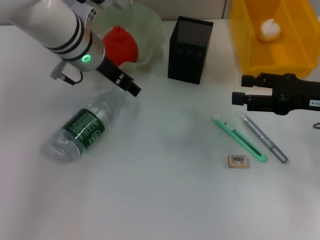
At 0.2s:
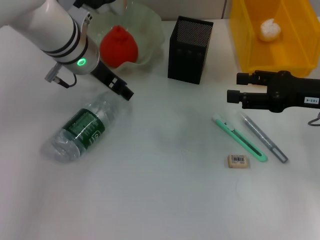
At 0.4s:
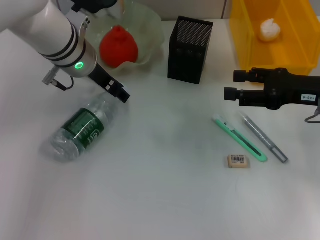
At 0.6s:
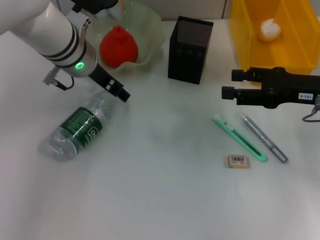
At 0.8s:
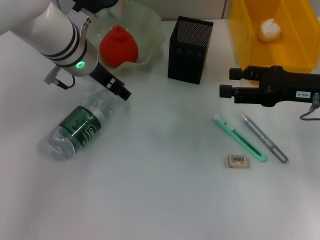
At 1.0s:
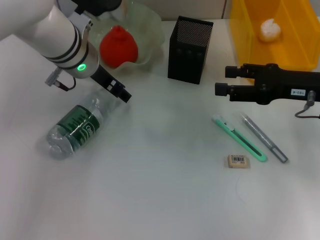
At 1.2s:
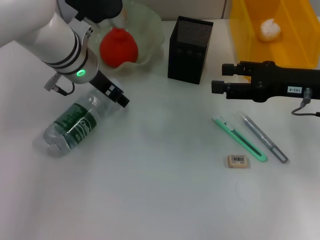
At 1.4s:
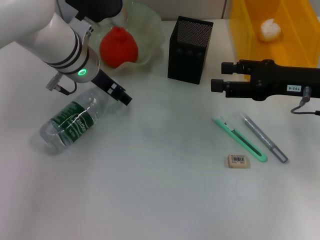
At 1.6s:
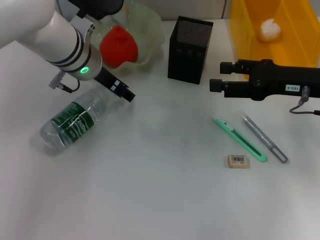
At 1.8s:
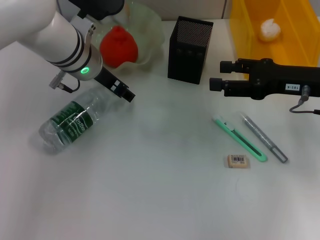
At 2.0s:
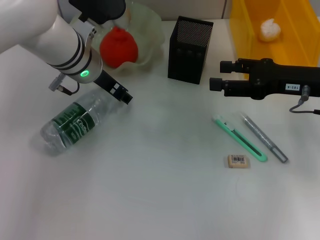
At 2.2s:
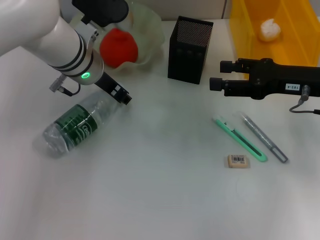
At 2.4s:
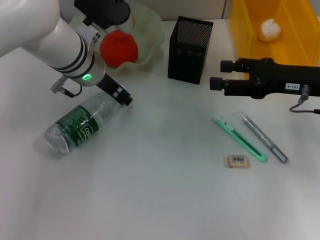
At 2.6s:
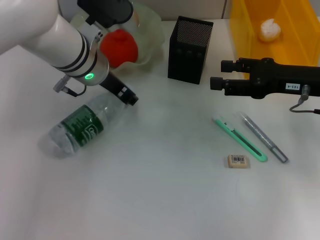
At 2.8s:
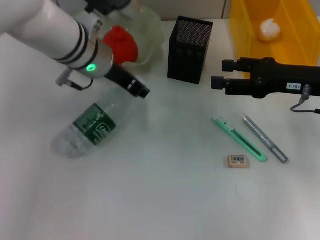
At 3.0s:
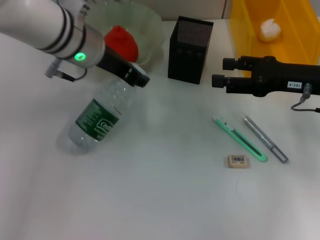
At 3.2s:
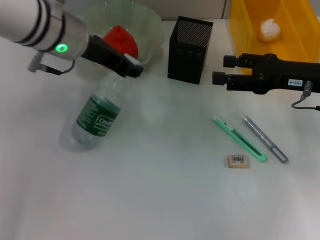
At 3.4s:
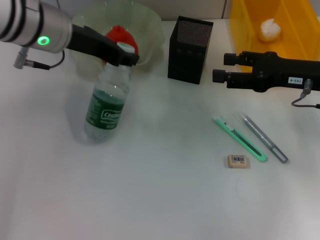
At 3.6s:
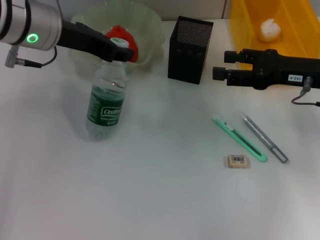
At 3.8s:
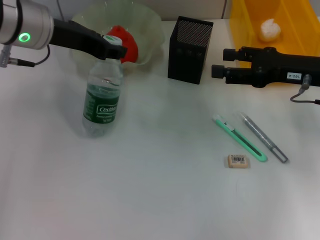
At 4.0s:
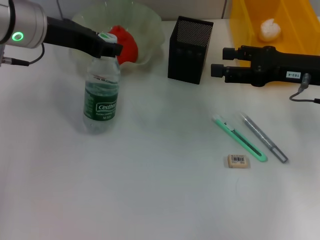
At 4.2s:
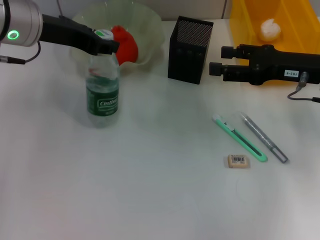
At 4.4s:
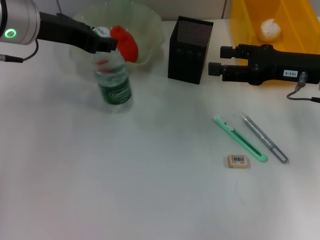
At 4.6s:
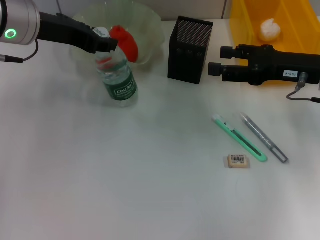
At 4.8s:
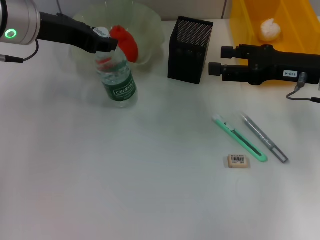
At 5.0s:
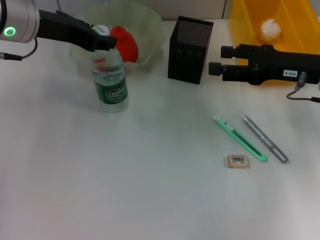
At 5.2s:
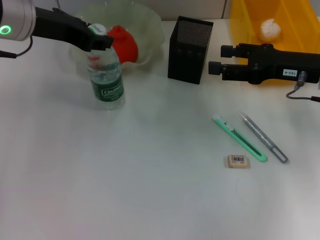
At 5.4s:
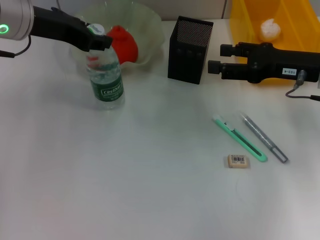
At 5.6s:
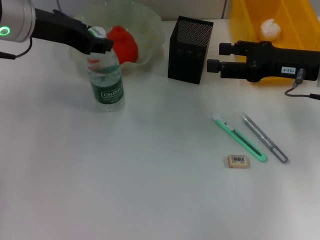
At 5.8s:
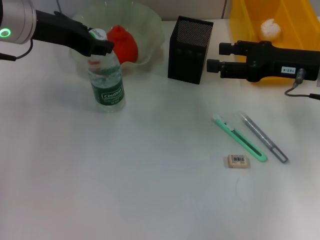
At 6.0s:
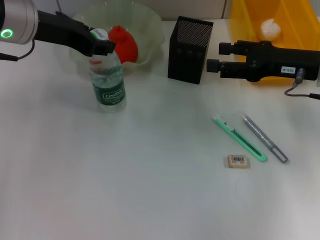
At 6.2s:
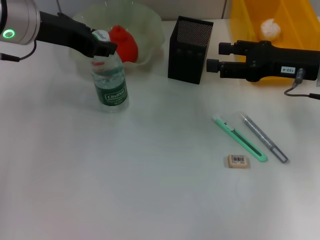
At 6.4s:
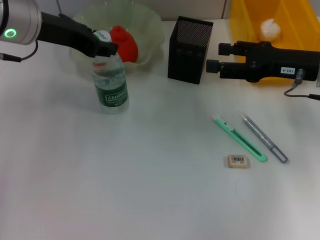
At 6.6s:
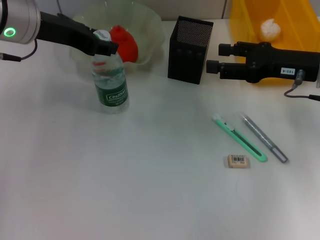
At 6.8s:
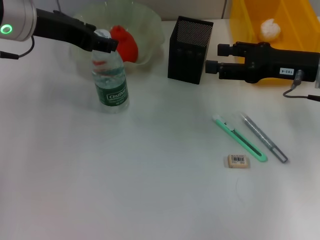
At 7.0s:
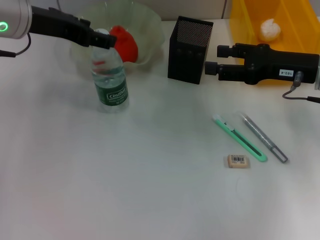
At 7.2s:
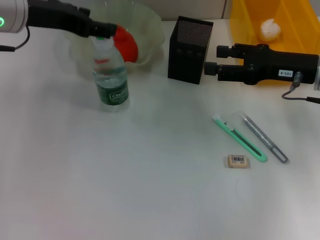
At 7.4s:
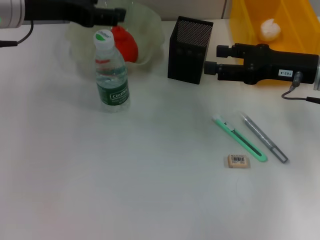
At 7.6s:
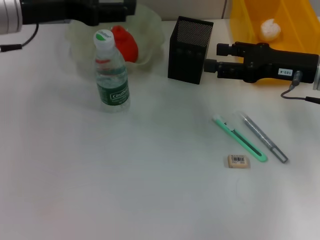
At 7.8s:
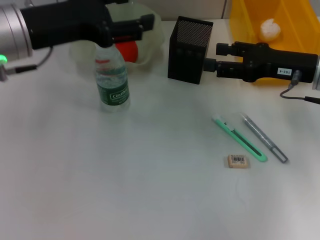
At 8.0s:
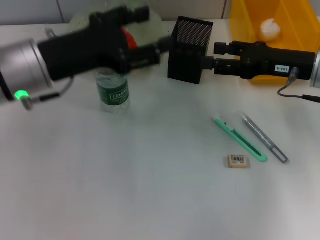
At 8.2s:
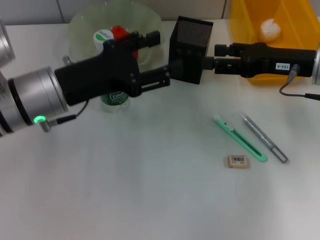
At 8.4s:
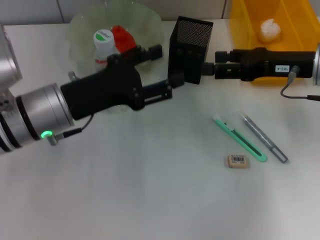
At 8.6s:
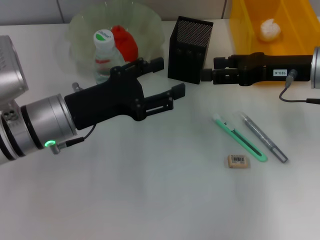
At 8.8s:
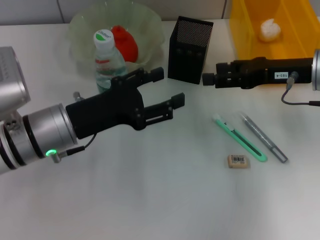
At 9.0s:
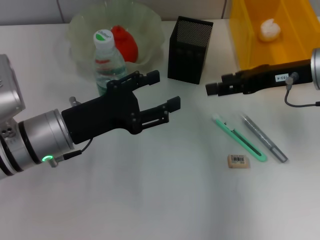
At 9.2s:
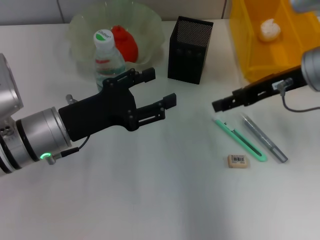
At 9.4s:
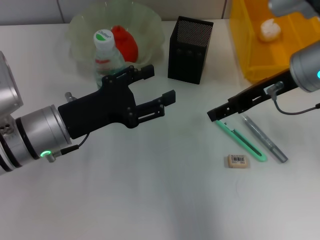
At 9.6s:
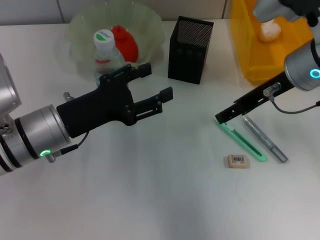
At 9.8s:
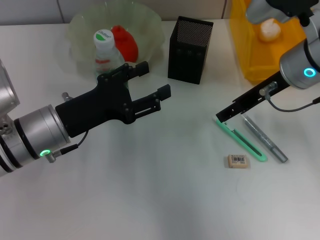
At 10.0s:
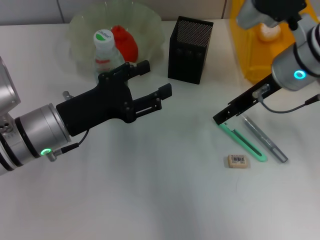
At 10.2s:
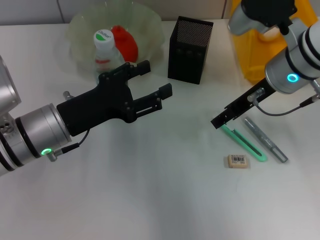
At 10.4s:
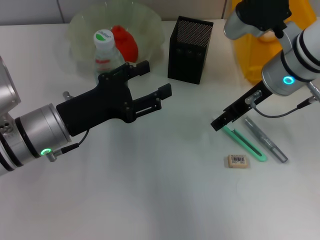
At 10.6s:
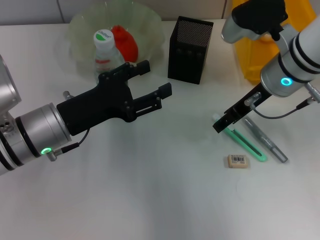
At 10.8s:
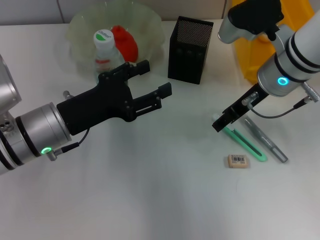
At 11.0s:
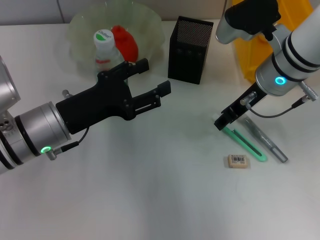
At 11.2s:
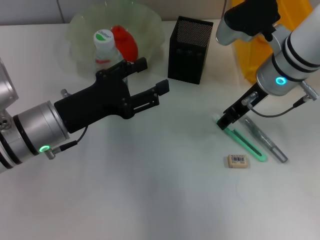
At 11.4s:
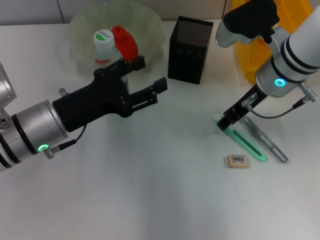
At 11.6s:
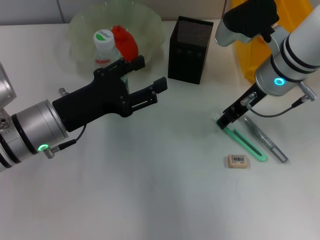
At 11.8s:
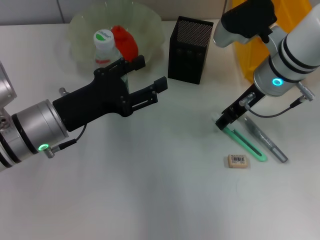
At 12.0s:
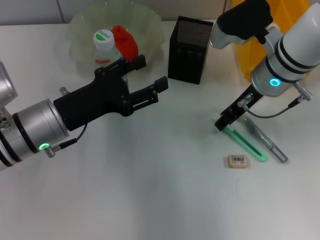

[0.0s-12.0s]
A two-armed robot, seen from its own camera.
Step, 0.0s to 2.4s: Grab the water bottle with the left hand.
Step, 2.6s to 7.2s: Place the water bottle on the table with the left hand.
0.0s to 1.6s: The grippers make only small movements.
1.6s to 3.0s: The left gripper closes.
3.0s to 4.4s: The left gripper shifts some 5 cm to the left.
4.4s to 6.0s: The grippers stay close to where they were, moving slightly.
6.0s to 7.6s: The left gripper opens.
7.6s to 9.0s: The left gripper moves downward and backward, roughly 15 cm.
9.0s to 10.4s: The right gripper travels to the left by approximately 10 cm.
10.4s to 12.0s: There are only small adjustments of the grippers.

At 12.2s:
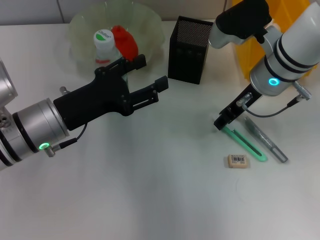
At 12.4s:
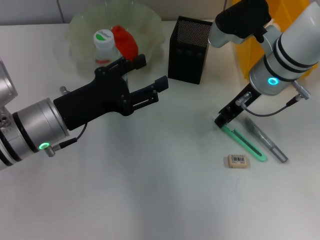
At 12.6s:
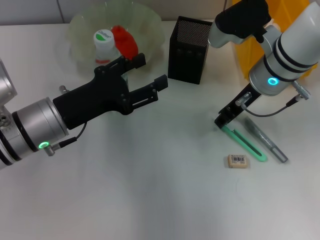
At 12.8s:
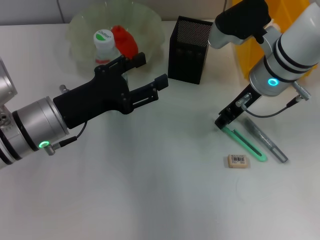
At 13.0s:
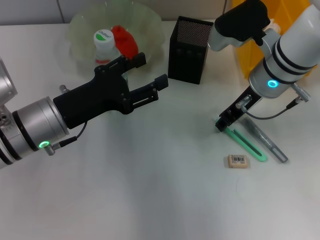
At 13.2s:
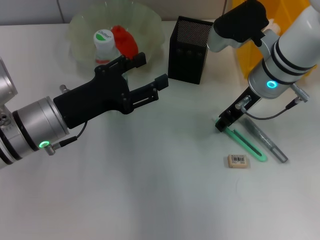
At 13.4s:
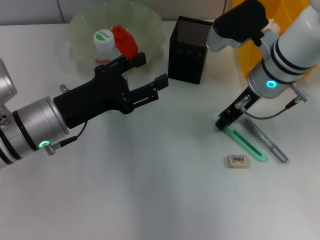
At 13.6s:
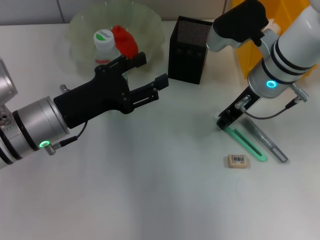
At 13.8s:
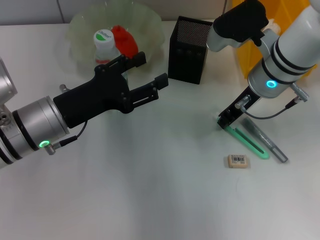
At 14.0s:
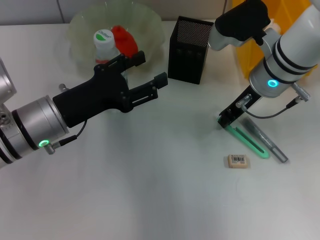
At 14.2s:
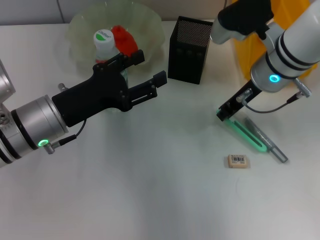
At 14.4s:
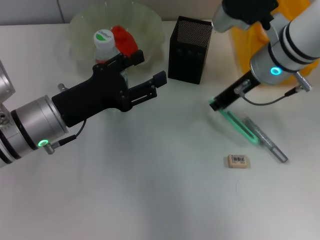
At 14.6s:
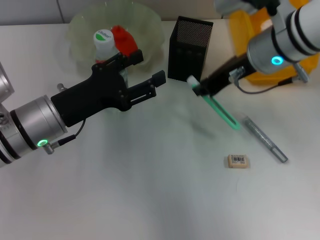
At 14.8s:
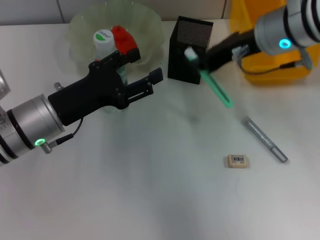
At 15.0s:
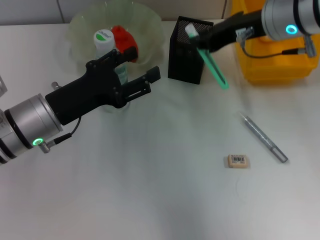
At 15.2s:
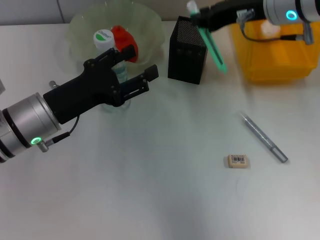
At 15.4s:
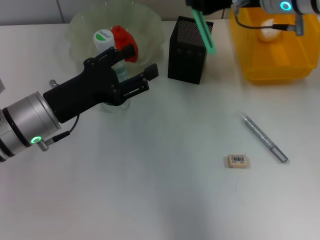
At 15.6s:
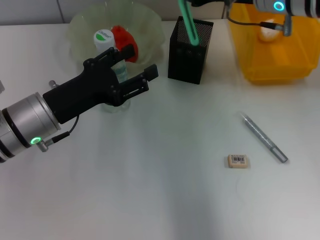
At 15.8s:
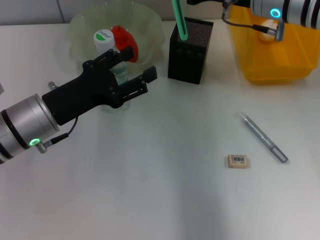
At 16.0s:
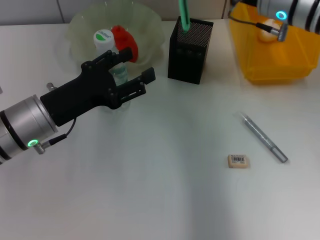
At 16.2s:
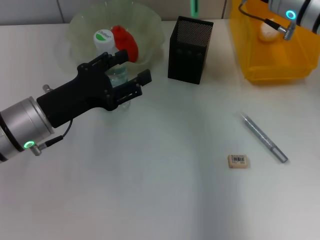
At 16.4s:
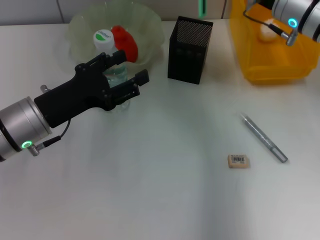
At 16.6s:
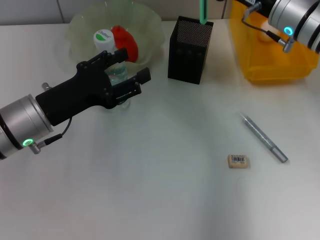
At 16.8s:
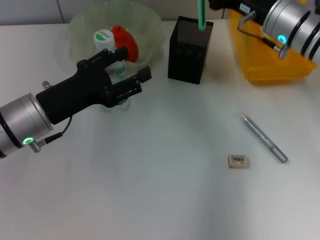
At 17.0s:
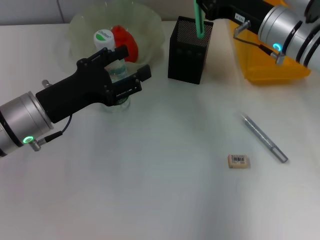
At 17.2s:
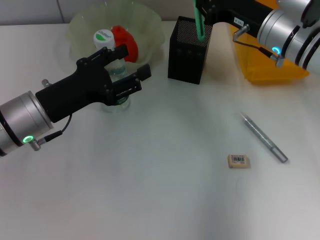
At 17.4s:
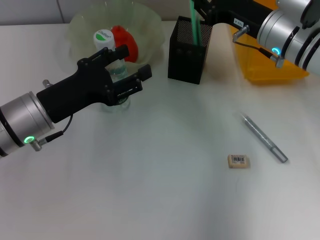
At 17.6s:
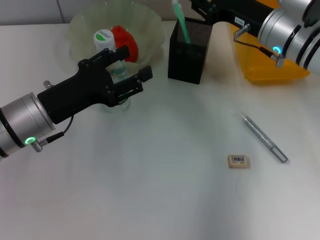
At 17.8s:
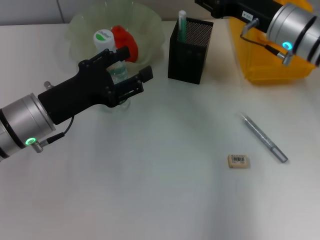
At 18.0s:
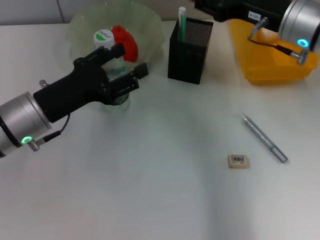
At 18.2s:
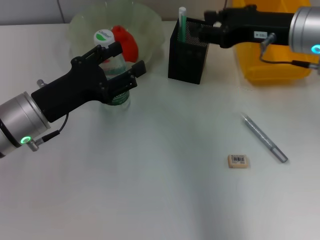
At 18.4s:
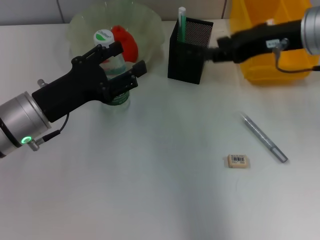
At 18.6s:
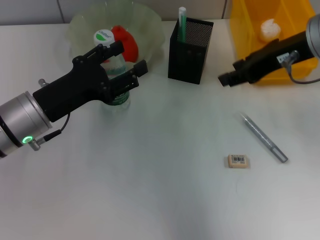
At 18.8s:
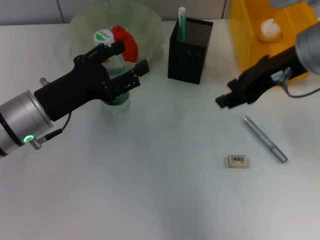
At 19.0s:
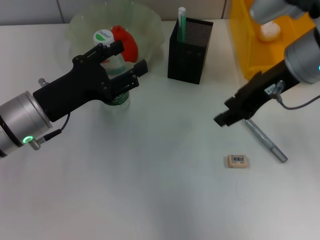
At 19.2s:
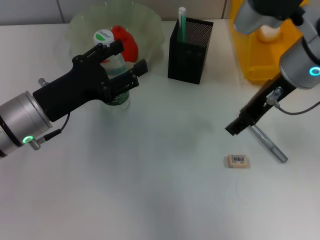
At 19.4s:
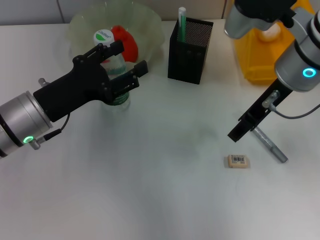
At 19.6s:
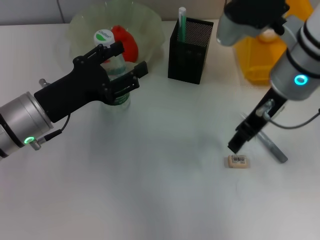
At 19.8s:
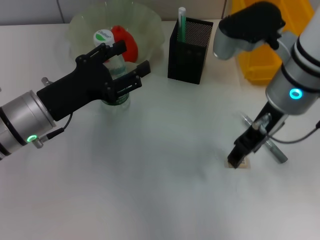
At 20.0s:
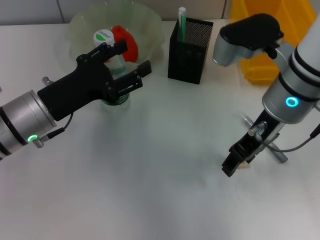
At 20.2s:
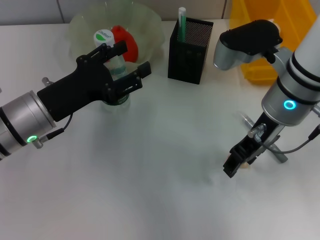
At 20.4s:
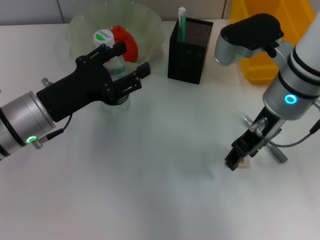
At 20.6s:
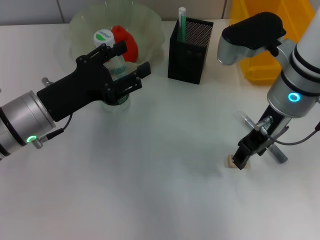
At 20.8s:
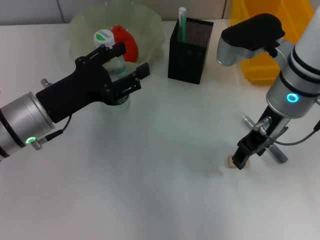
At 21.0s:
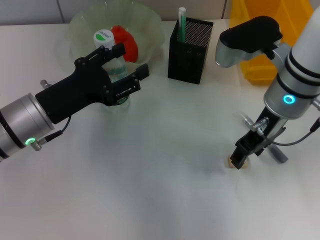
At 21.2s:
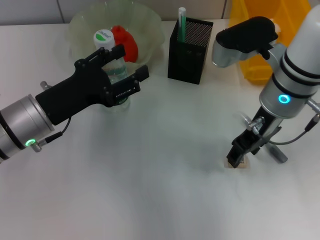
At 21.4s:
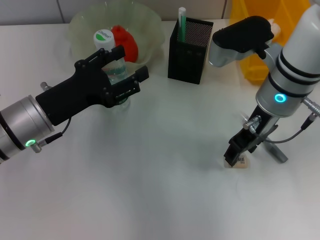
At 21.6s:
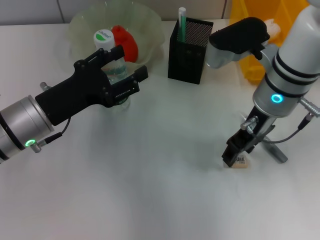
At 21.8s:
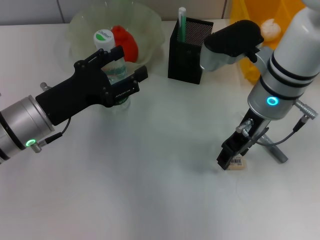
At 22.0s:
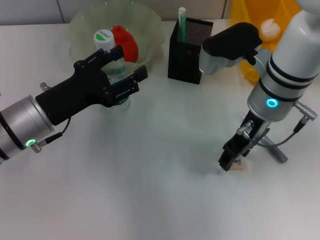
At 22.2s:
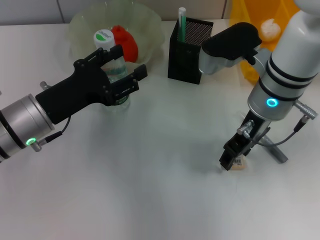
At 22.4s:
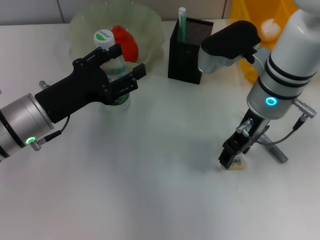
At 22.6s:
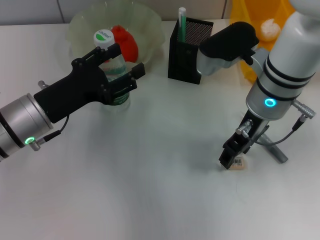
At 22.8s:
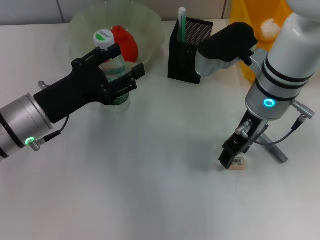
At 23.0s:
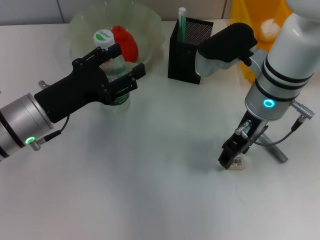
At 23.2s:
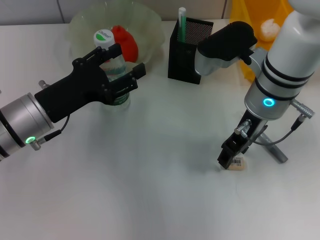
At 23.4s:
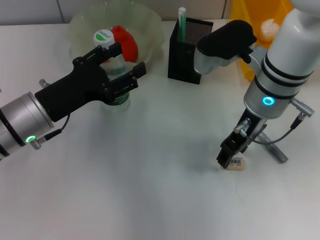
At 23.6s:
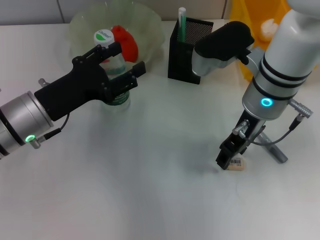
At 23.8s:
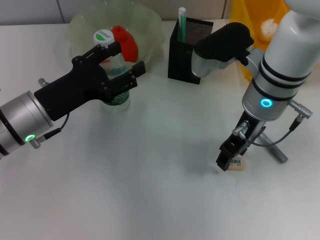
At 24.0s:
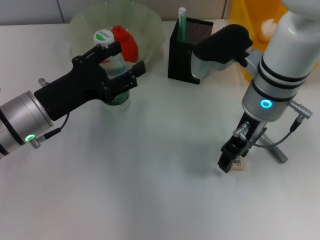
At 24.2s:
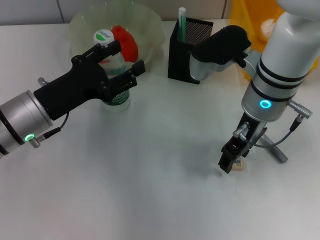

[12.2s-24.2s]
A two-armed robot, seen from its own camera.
Step, 13.8s to 17.8s: Place the blue utility knife into the pen holder with the right hand.
12.2s to 13.8s: Both grippers stay put.
13.8s to 15.2s: The right gripper goes approximately 10 cm upward.
15.2s to 16.6s: The right gripper is displaced downward by about 5 cm.
16.6s to 18.2s: The right gripper shifts by about 5 cm, and opens its fingers.
18.2s to 19.8s: The right gripper shifts some 5 cm to the left.
19.8s to 22.6s: The grippers make only small movements.
22.6s to 24.2s: Both grippers stay about where they are.
